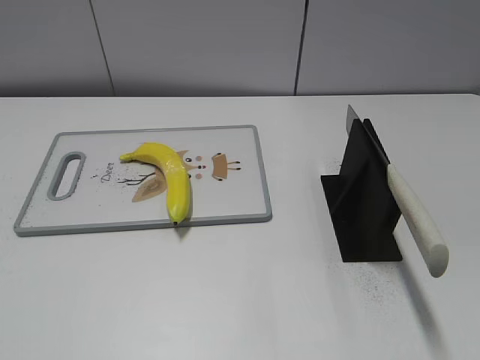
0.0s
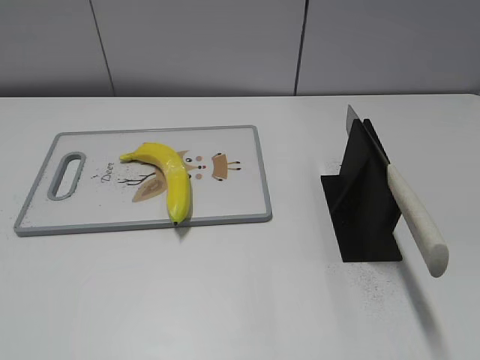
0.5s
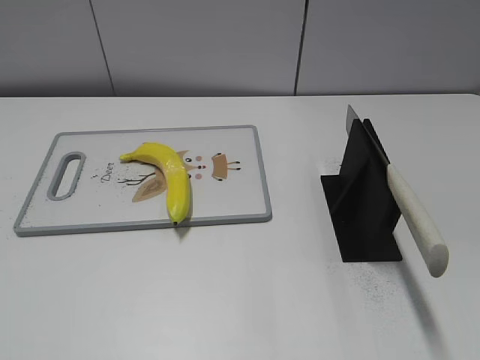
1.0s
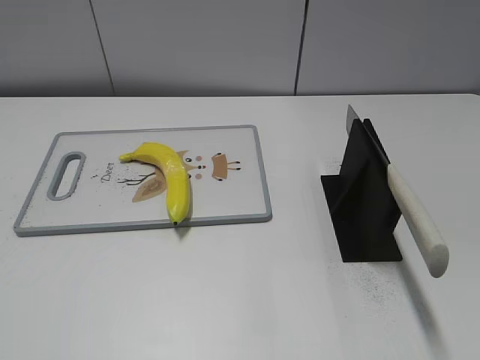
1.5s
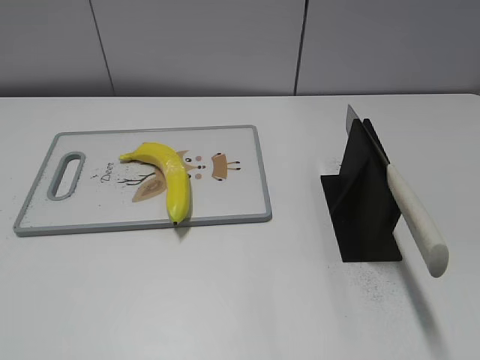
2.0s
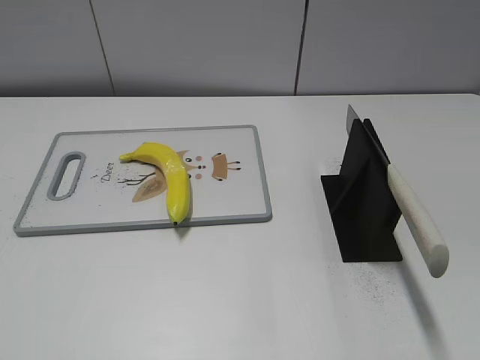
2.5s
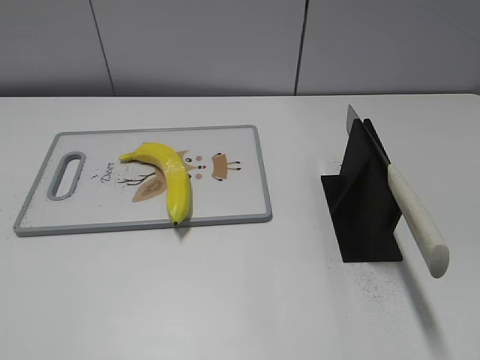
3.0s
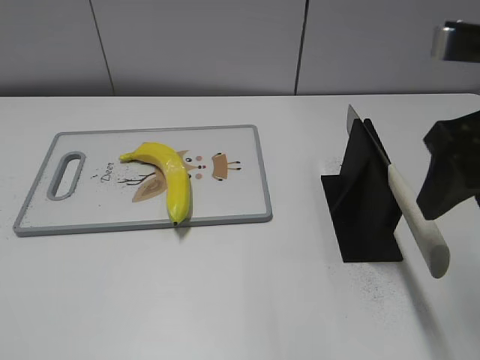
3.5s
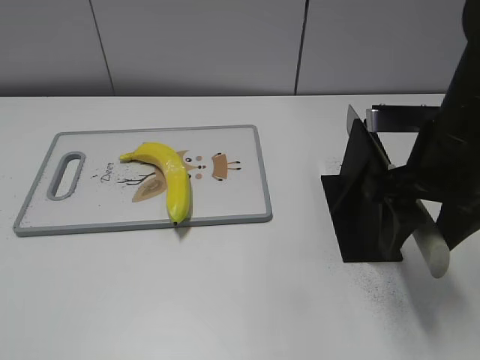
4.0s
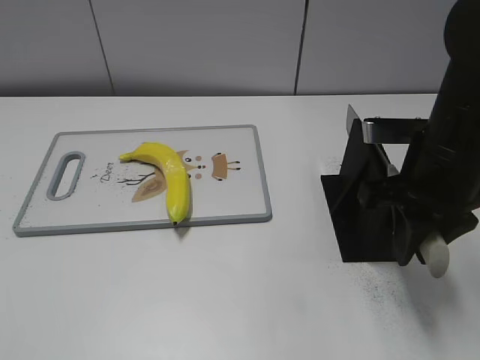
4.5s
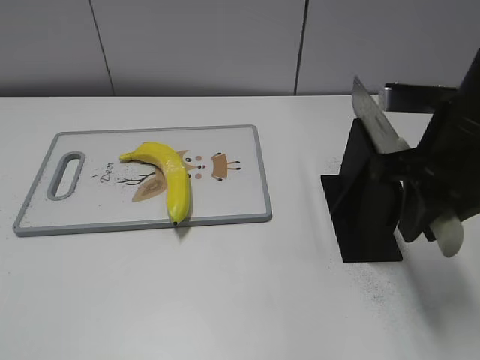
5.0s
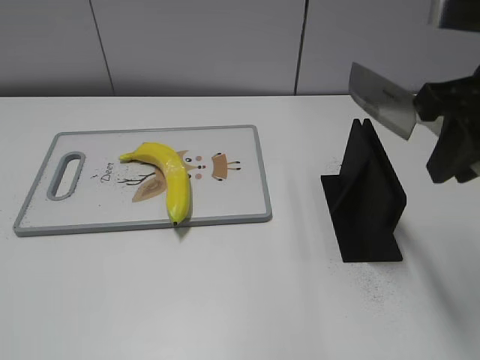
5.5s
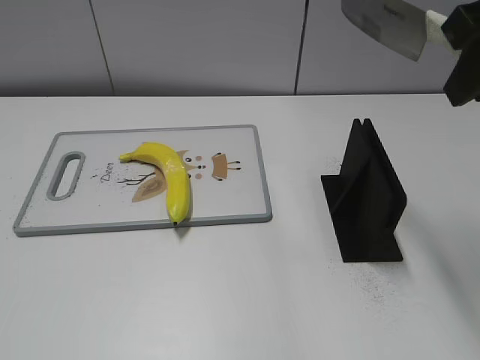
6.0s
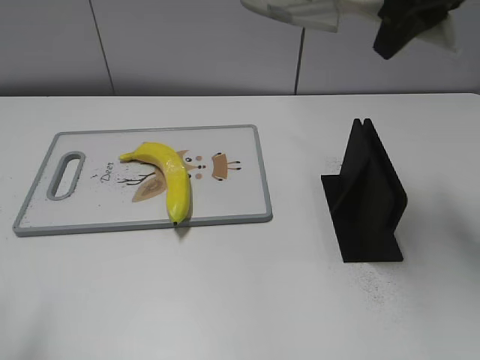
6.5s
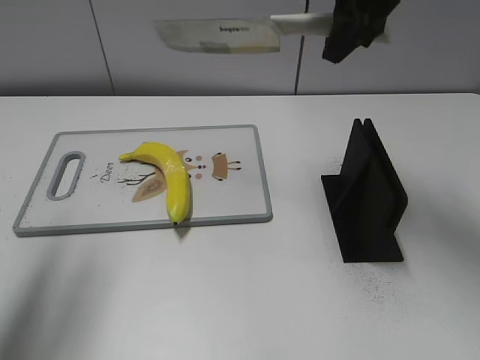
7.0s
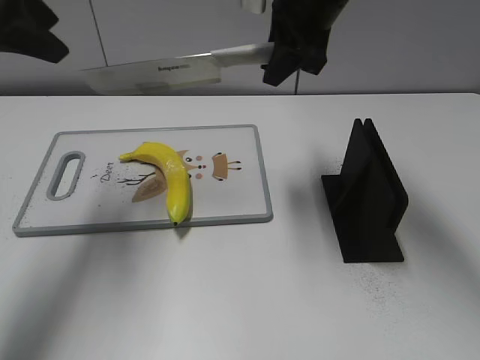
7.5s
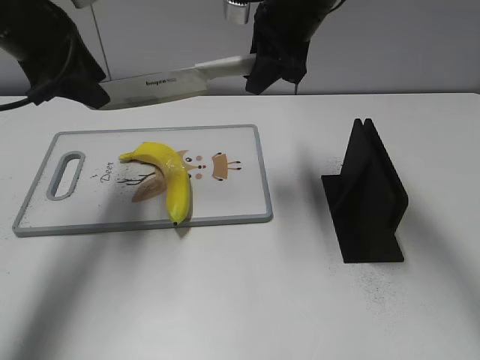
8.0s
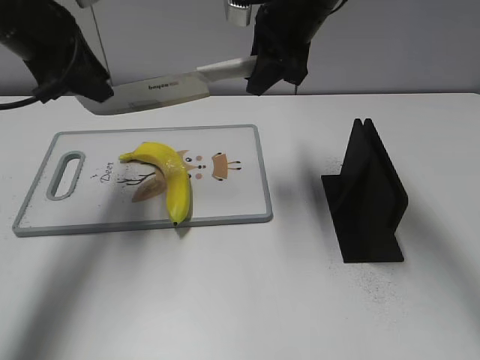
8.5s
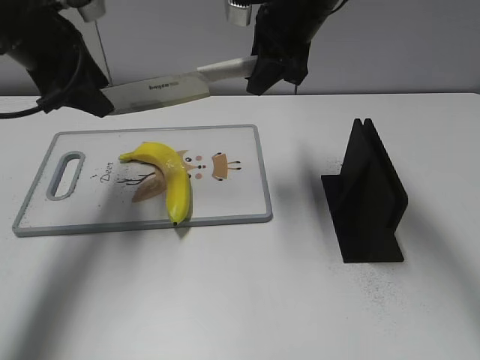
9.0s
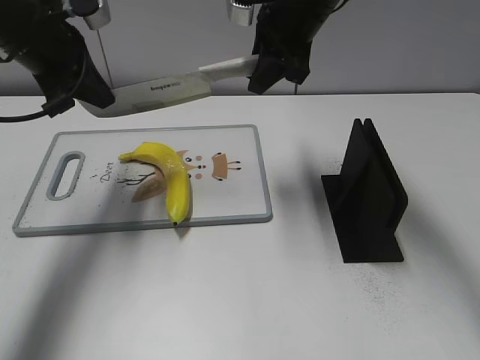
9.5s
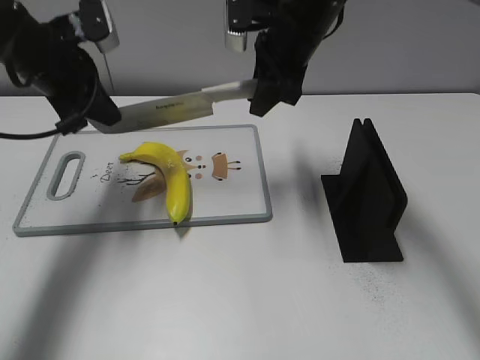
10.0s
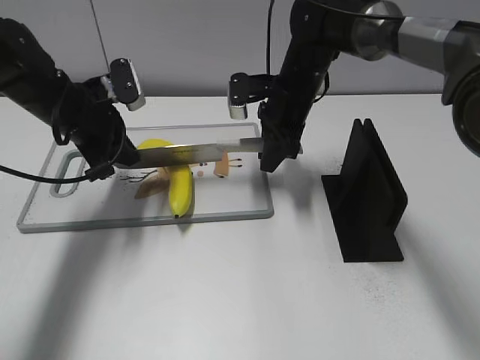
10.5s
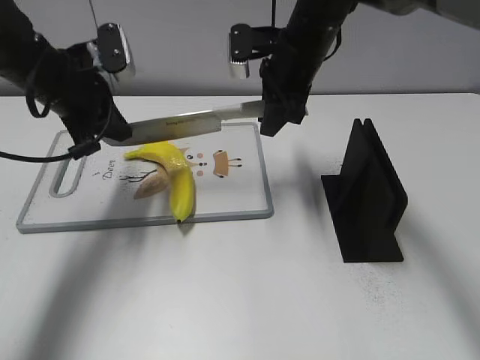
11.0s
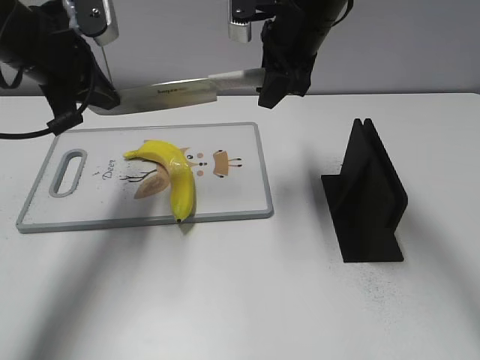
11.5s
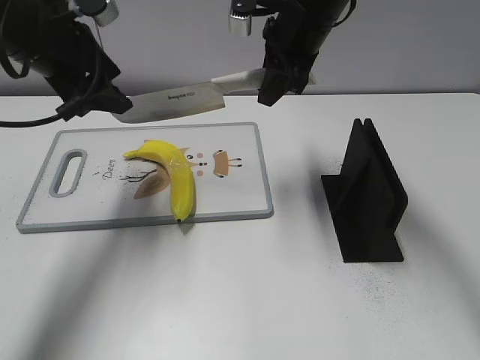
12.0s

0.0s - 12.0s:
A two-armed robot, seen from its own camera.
Task of the whole recording: cut plastic banana.
Step, 0.0s - 5.0s: Grab the knife handle with your right hand.
Step, 5.5s - 11.5s: Lift the knife with your right hand.
2.0s - 4.0s: The right gripper travels forward and to the left by approximately 25 cm.
4.0s - 6.0s: The right gripper is displaced upward by some 15 cm, and closes its fingers.
6.0s - 8.0s: The right gripper heads forward, to the left and downward, covering some 25 cm; the left gripper heads forward, covering roughly 35 cm.
8.0s - 10.0s: The left gripper moves downward, some 5 cm, and closes up.
10.0s - 12.0s: The left gripper moves roughly 10 cm downward and comes back, and opens. The right gripper goes downward and returns, roughly 10 cm each way.

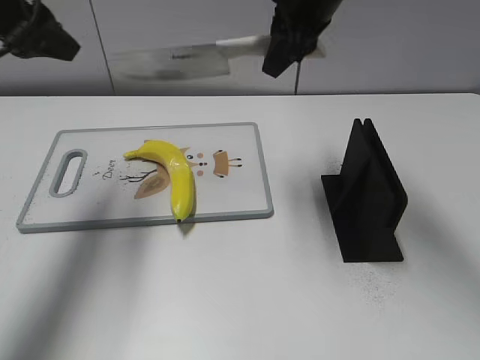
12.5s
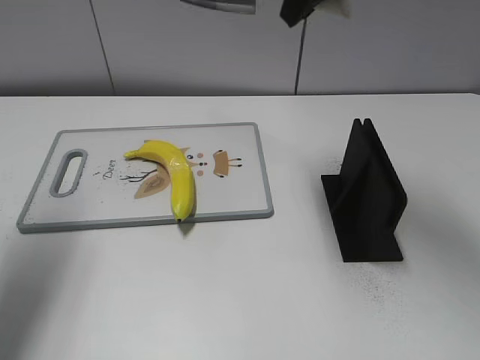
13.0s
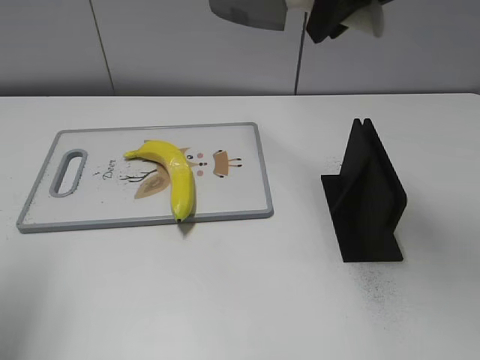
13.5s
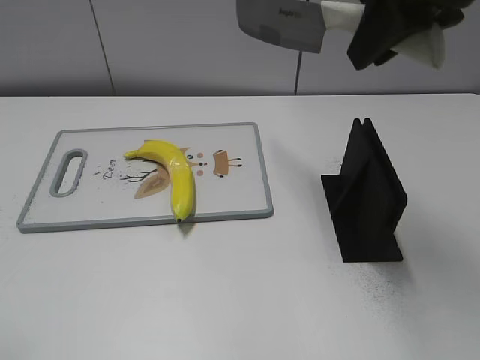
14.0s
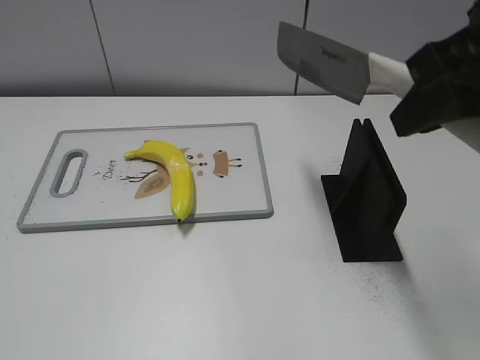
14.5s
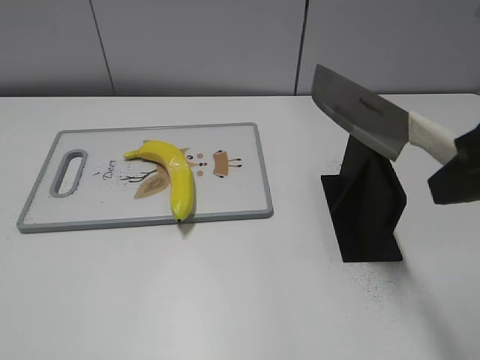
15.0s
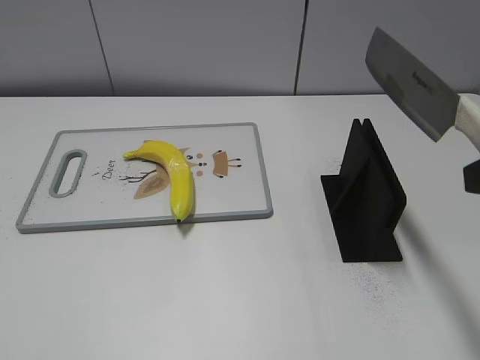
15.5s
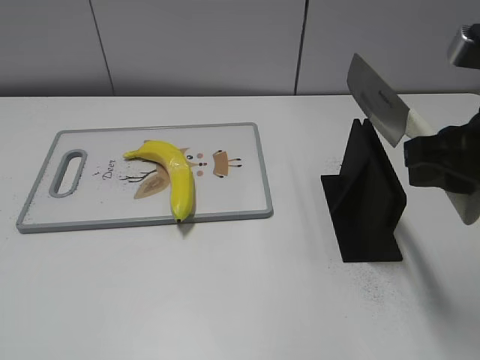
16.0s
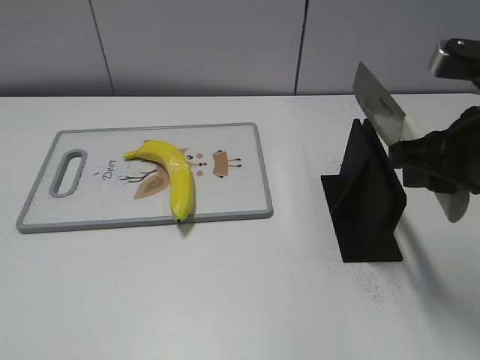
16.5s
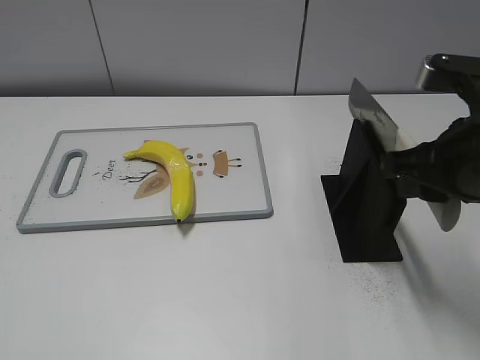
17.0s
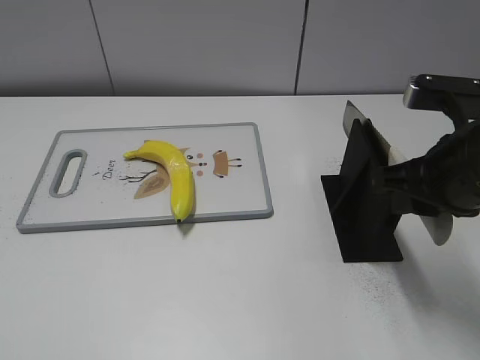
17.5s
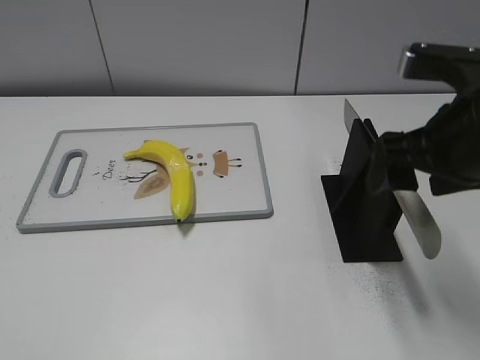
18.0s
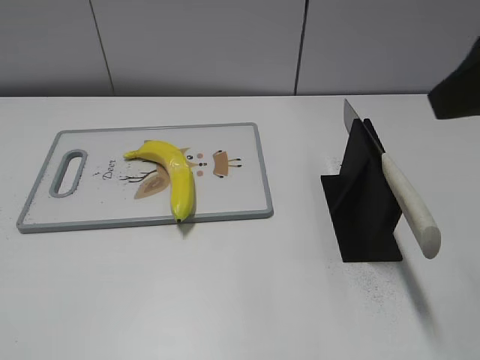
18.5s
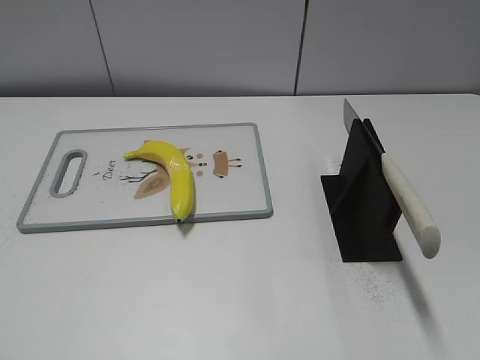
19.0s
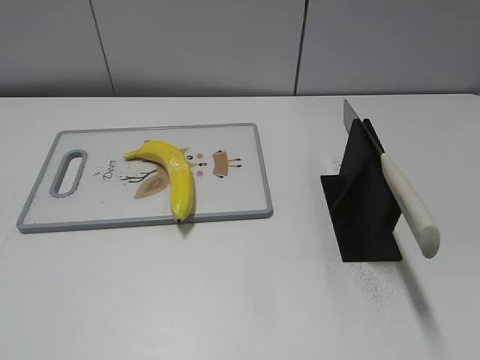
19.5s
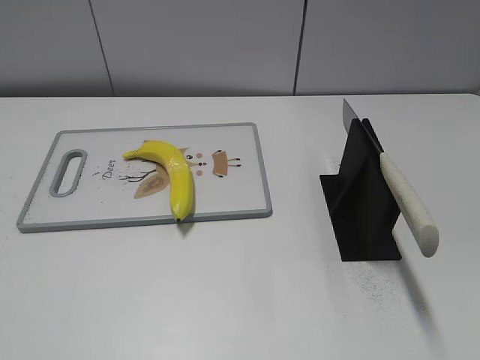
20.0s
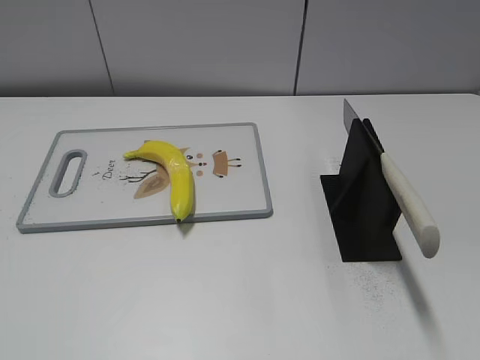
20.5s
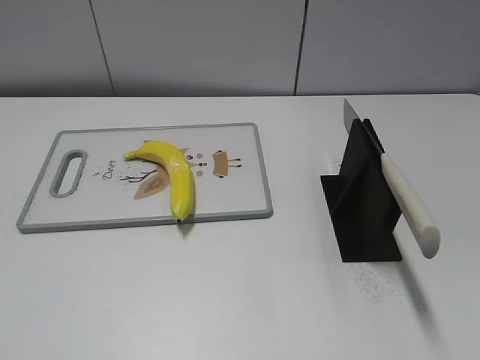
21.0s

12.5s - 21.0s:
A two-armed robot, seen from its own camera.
Task of the whole recording: cut plastic banana.
Step, 13.5s - 14.0s: Secure the blade with your left hand.
Step, 15.0s - 21.0s: Place the knife on the storage rack with your right hand.
12.5s - 14.5s: The left gripper moves backward, about 30 cm; the right gripper is displaced backward and to the right by some 20 cm.
14.5s - 16.5s: The right gripper moves downward, roughly 10 cm.
16.5s - 19.0s: The right gripper is displaced backward and upward by about 15 cm, and opens up.
